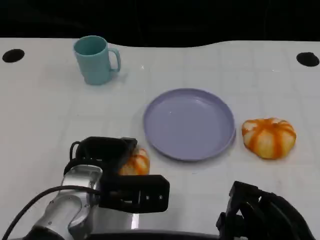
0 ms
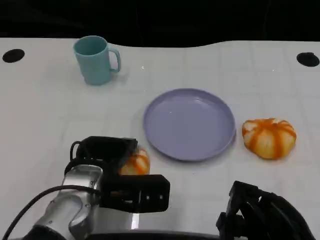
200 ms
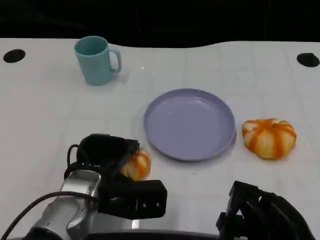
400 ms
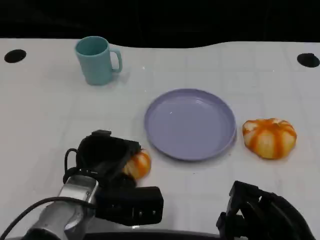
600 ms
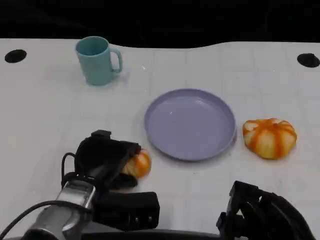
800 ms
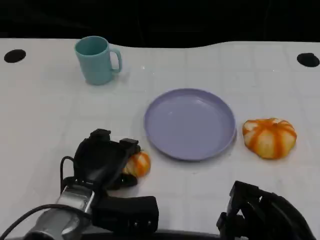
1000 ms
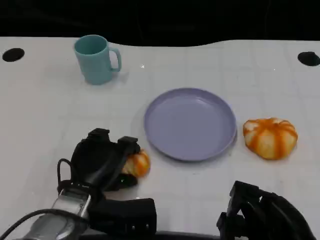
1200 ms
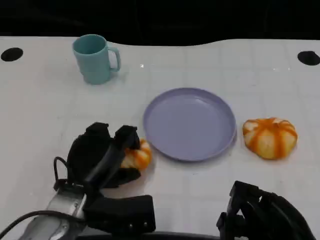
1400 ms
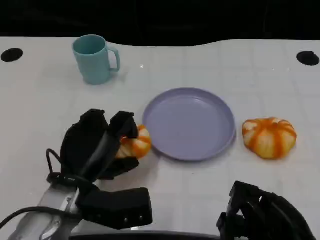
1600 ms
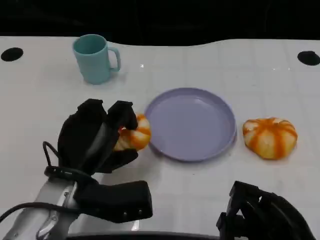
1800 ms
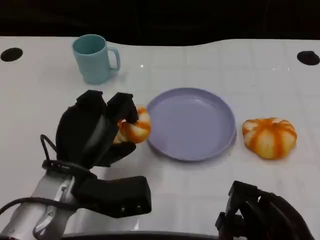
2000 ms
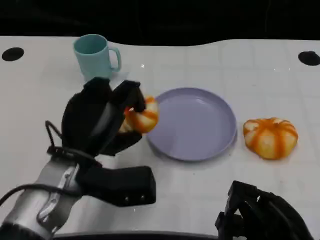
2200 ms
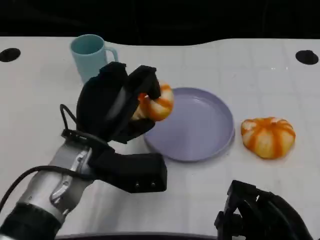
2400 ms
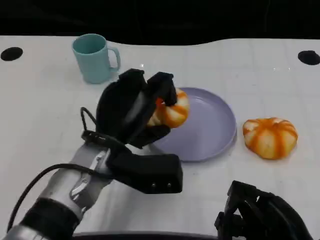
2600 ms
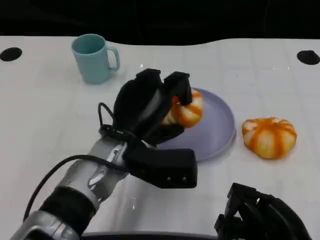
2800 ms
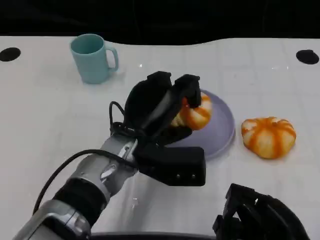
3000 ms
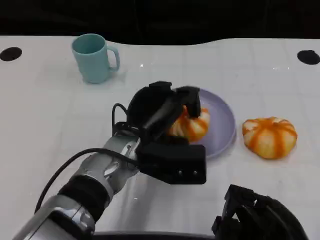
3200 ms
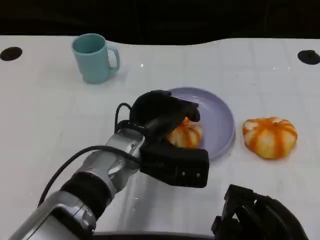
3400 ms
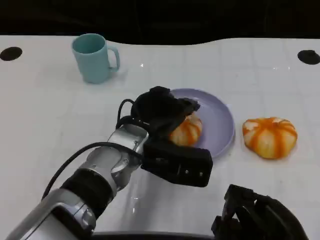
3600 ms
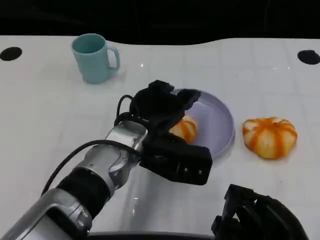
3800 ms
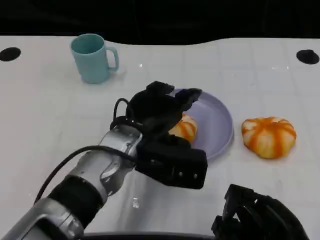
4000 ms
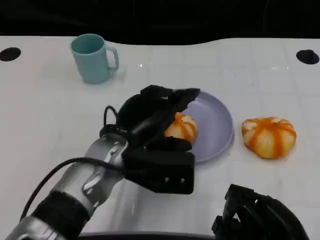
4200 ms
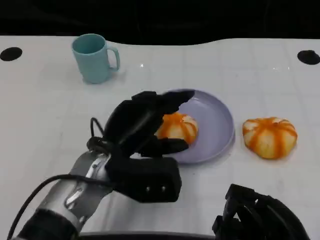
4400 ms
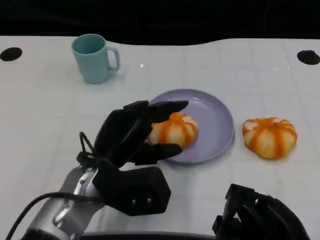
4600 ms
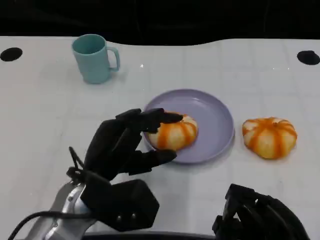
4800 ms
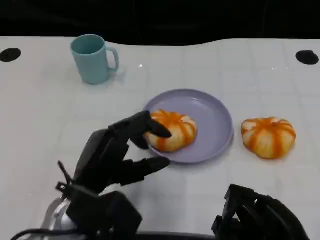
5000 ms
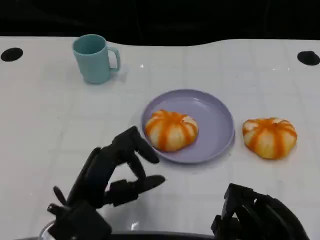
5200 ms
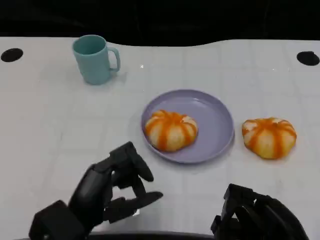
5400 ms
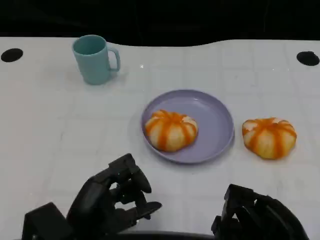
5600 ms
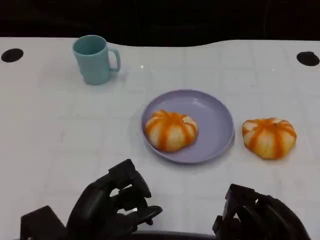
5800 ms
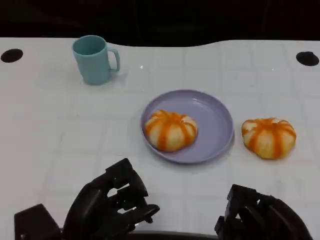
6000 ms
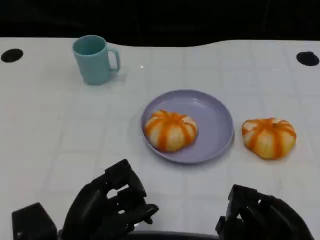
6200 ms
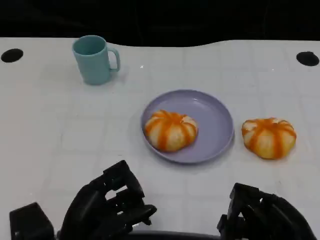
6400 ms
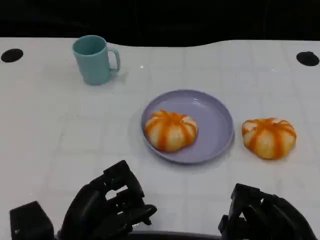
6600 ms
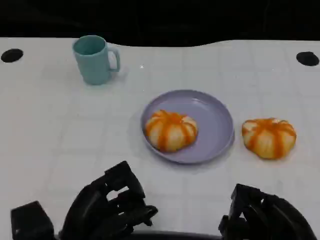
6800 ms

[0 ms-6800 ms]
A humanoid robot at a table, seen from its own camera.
Task of the whole recording: Grasp the bread from the table and place it into the plate.
1400 ms to 2800 ms: The left hand travels to the right and upward by some 10 cm.
4000 ms to 5400 ms: The left hand goes approximately 15 cm backward, to the left and downward.
5400 ms to 6800 ms: The hands stay close to where they were, moving slightly.

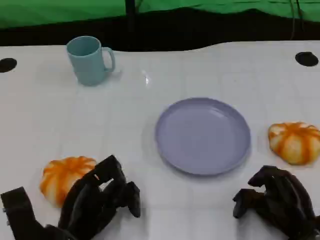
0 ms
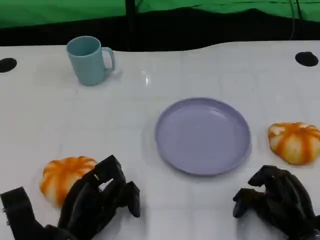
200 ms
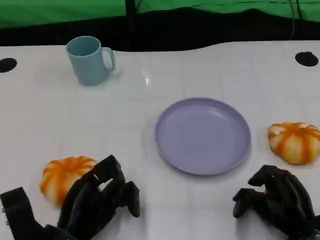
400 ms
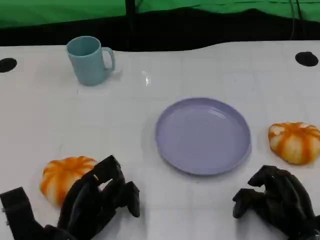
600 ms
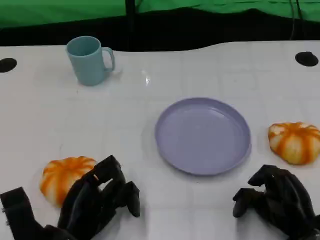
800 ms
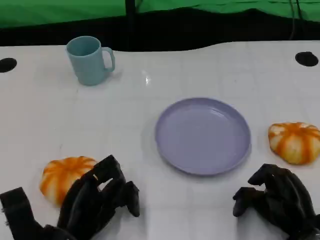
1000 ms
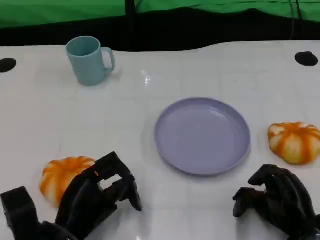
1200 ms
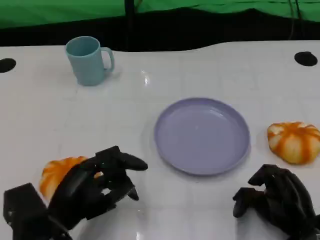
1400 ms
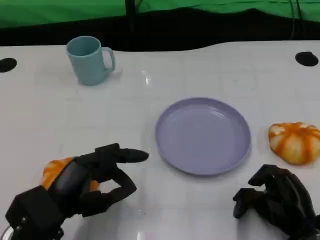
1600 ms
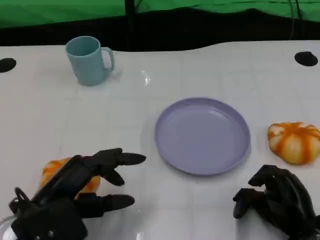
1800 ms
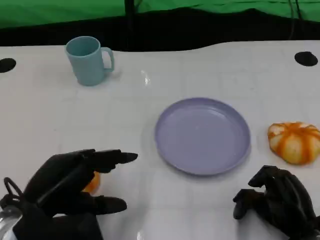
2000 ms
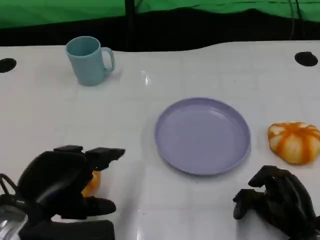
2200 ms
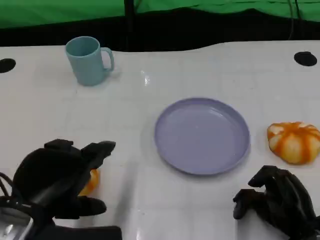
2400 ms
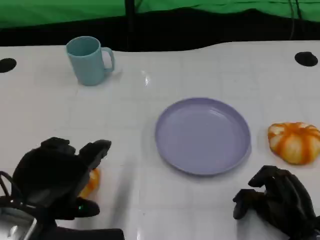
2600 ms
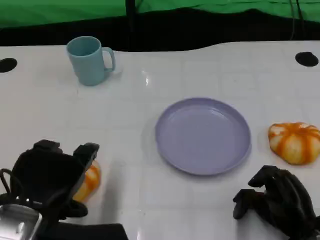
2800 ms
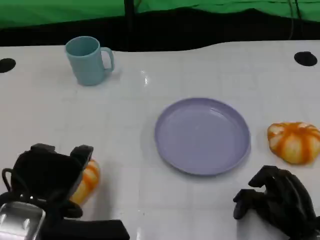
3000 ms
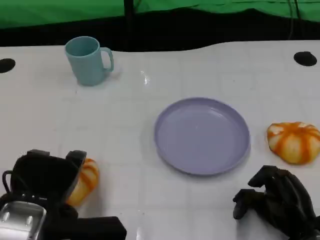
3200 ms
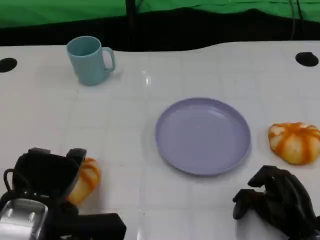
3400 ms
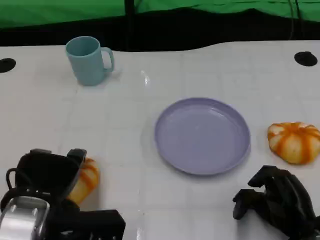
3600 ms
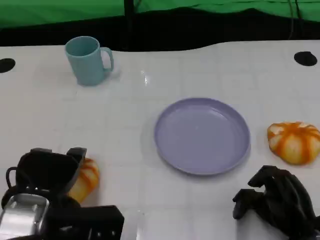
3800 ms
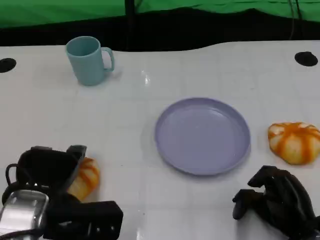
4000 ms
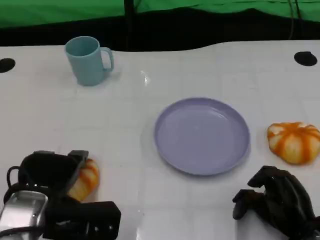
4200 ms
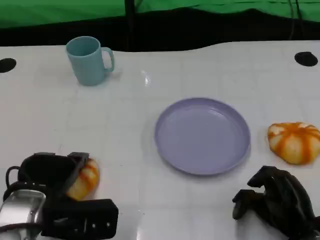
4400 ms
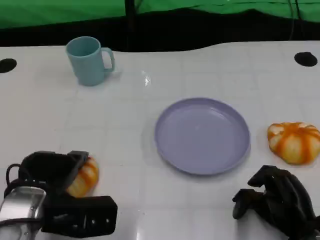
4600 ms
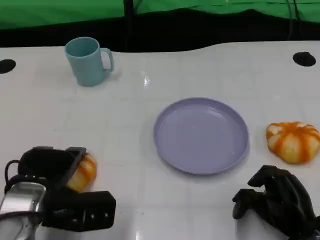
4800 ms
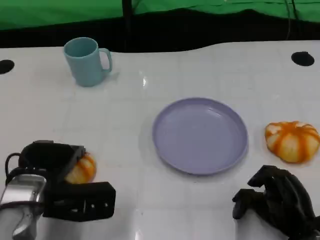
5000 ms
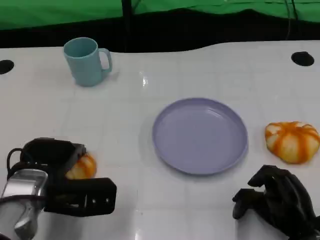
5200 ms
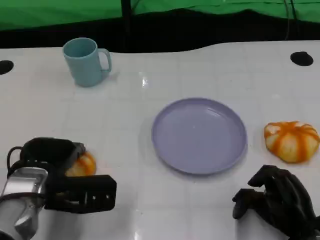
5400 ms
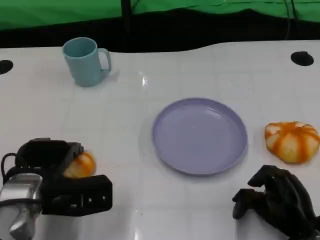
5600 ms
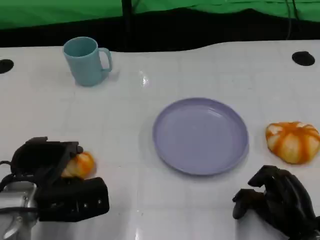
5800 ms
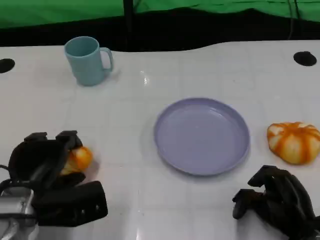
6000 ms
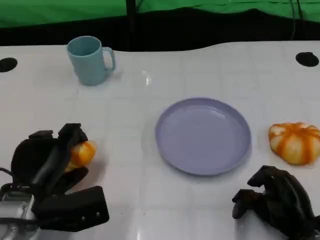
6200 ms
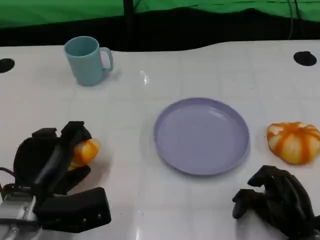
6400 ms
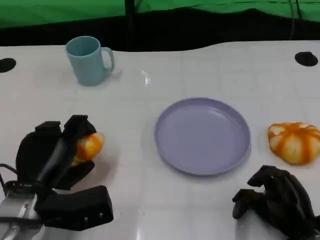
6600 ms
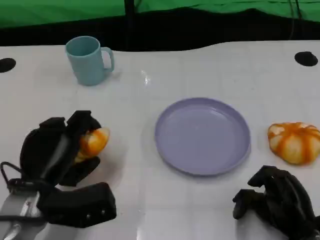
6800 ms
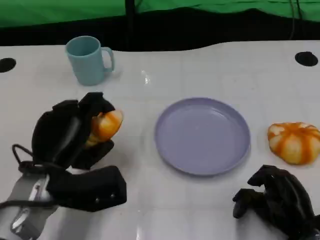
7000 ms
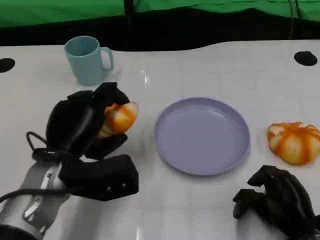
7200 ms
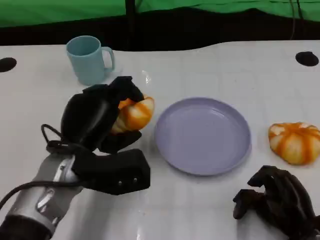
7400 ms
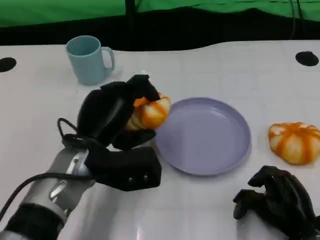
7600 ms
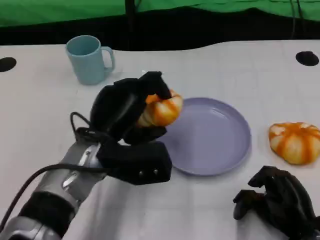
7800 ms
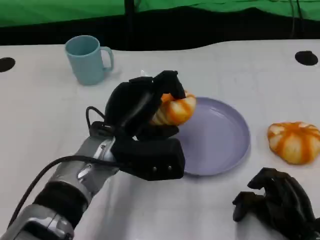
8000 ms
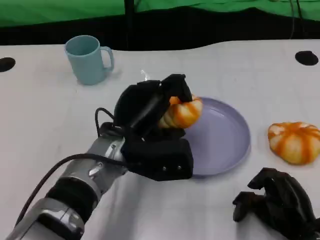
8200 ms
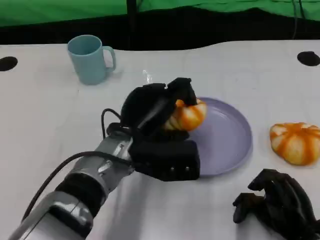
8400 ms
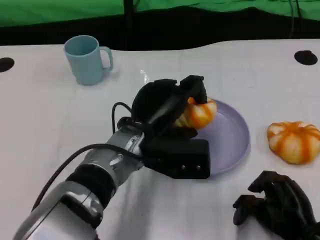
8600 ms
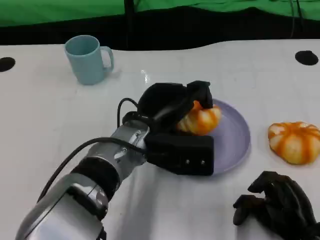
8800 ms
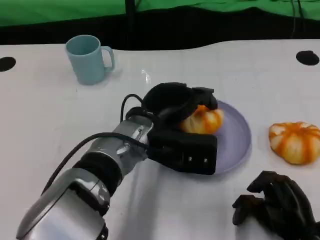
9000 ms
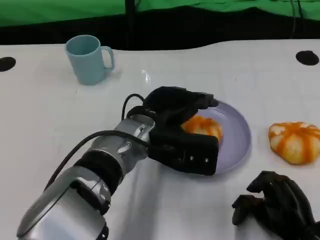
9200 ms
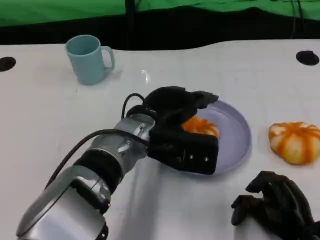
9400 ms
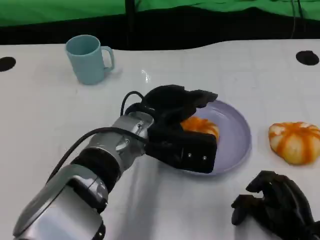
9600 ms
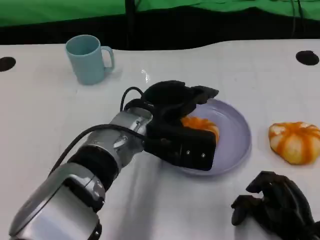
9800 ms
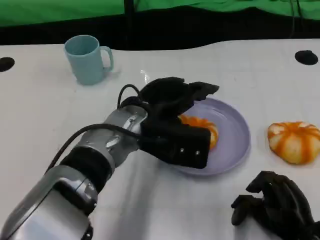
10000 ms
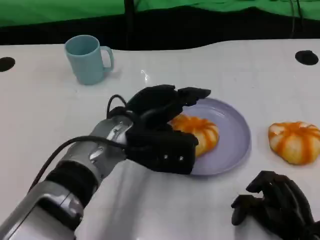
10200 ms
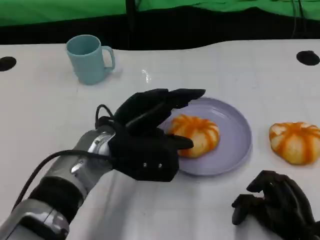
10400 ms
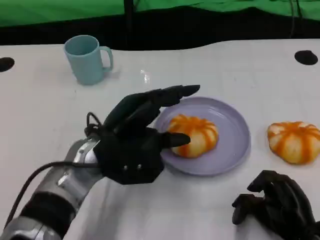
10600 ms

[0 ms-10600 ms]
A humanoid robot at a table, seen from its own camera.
Task of the whole recording: Grasp the bread from the table and place it into the plate.
0 ms to 1600 ms: The left hand heads upward, covering approximately 5 cm.
1600 ms to 3000 ms: The left hand travels upward by some 5 cm.
3000 ms to 4600 ms: The left hand travels downward and forward by about 10 cm.
6000 ms to 7600 ms: The left hand is displaced to the right and upward by roughly 10 cm.
7600 ms to 9000 ms: The left hand goes some 10 cm to the right.
9000 ms to 10600 ms: The left hand travels to the left by roughly 5 cm.

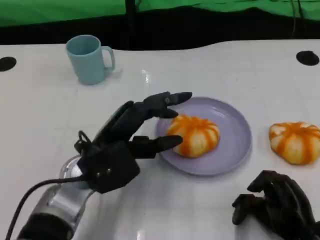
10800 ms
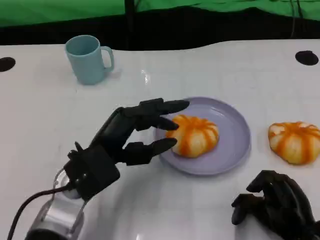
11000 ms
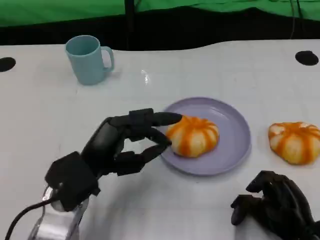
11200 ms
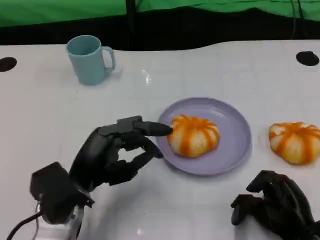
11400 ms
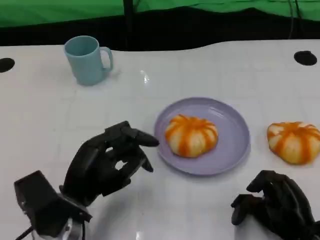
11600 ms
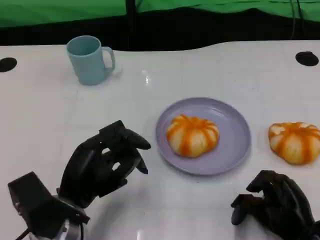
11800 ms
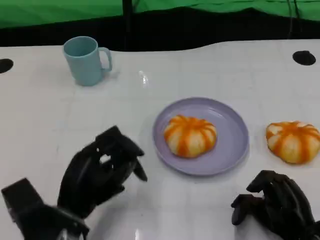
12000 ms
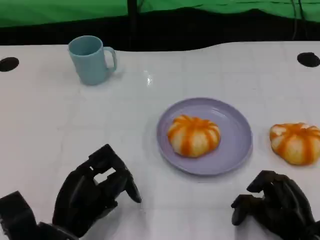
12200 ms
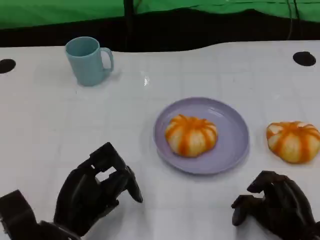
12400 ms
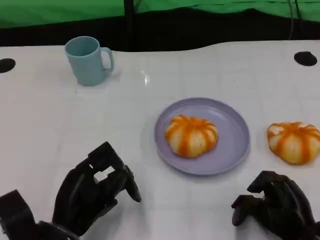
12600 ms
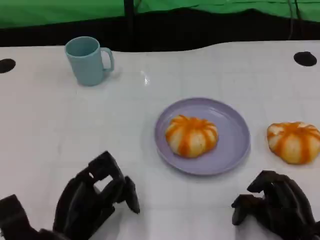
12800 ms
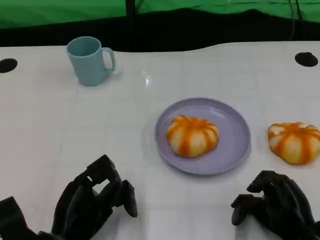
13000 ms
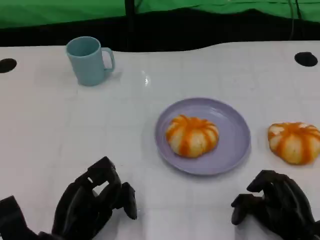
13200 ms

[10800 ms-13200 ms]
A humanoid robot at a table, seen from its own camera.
Task of the whole recording: Grasp the bread from the table and place it into the plate.
10800 ms to 12000 ms: The left hand shifts approximately 10 cm backward and downward.
12000 ms to 13200 ms: There are only small adjustments of the hands.

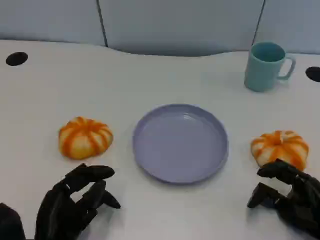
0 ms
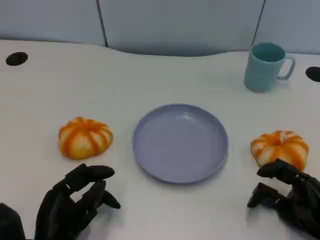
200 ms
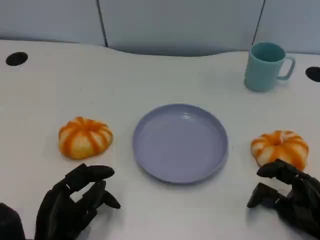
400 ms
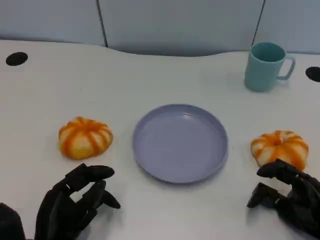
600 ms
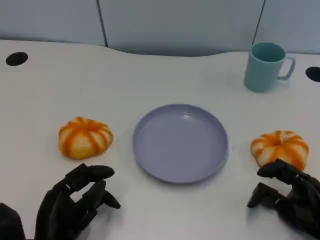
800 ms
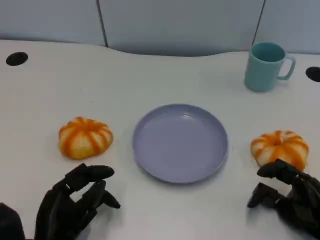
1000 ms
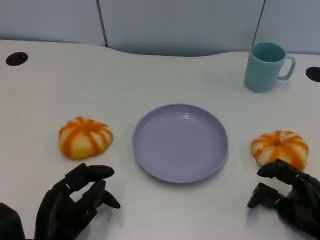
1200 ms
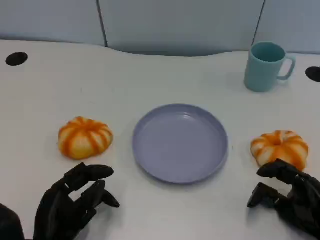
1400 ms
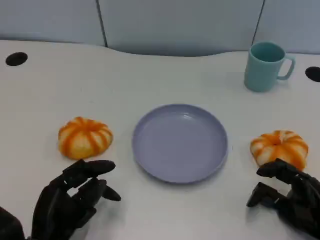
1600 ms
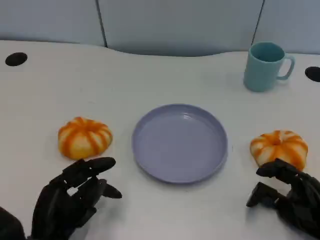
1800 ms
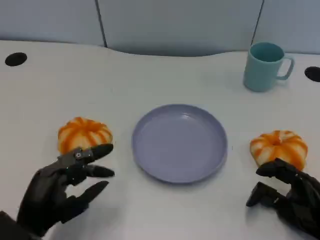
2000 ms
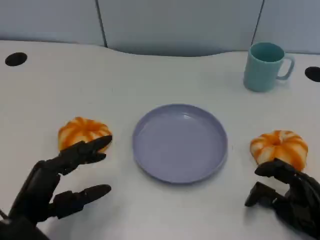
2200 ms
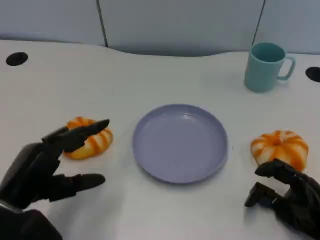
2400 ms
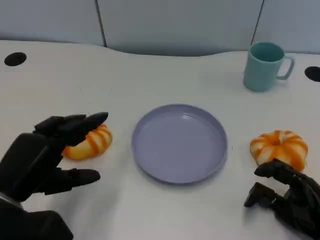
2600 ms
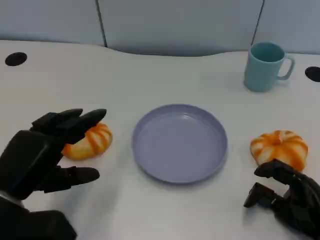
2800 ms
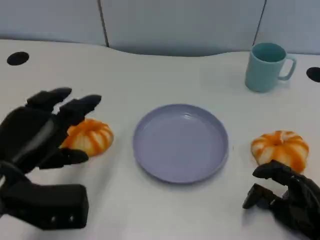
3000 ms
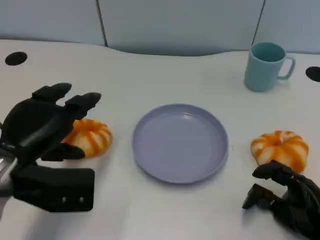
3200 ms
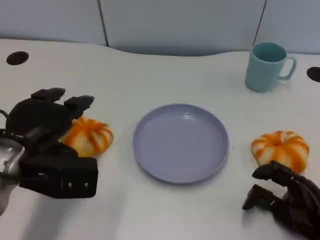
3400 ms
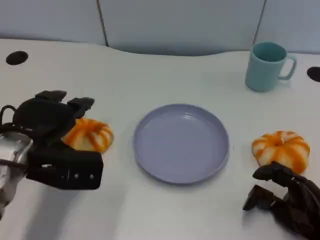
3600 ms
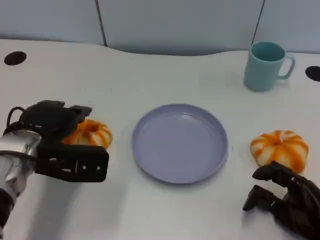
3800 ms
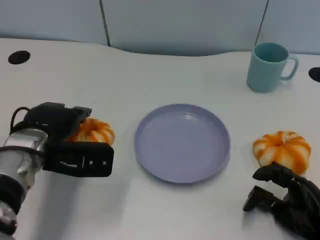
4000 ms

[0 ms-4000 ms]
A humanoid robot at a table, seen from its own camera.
Task of the whole recording: Grasp the bread from the table and place it into the plate.
0 ms to 1400 ms: Both hands stay about where they are.
1400 ms to 2600 ms: The left hand heads upward, covering some 10 cm.
2600 ms to 4000 ms: The left hand goes about 10 cm forward.
